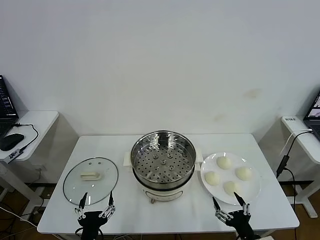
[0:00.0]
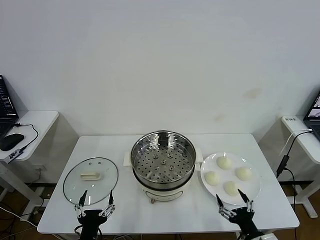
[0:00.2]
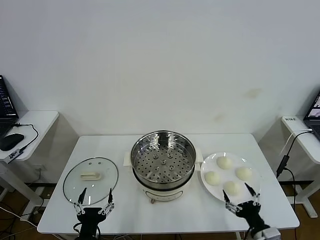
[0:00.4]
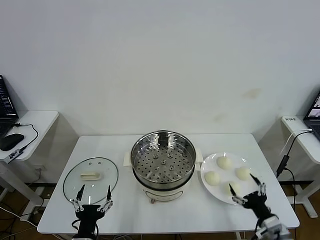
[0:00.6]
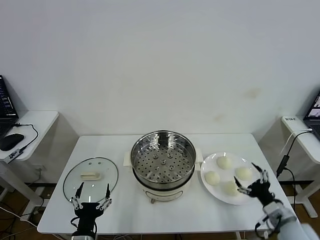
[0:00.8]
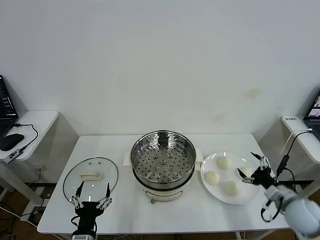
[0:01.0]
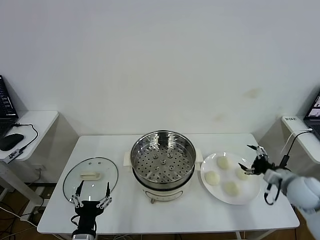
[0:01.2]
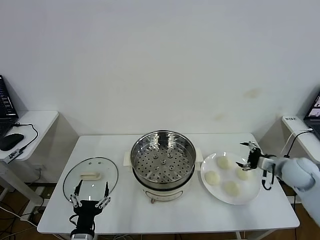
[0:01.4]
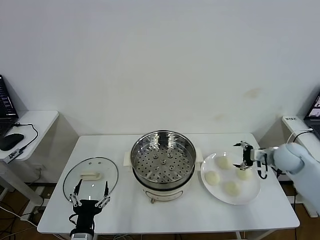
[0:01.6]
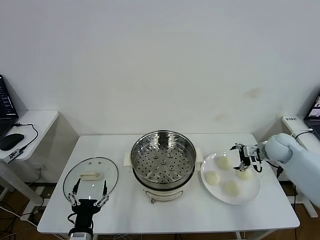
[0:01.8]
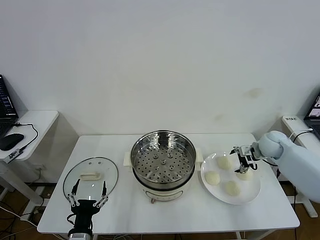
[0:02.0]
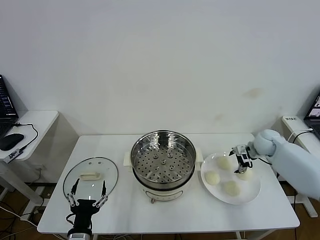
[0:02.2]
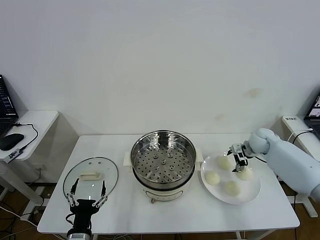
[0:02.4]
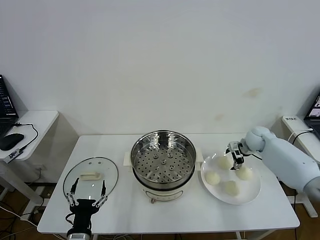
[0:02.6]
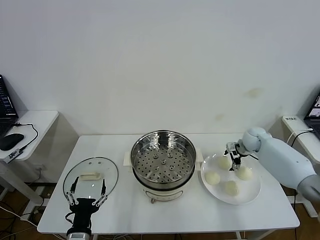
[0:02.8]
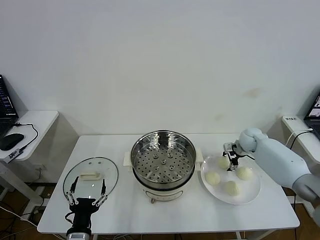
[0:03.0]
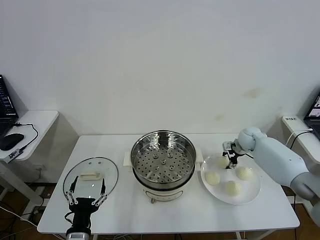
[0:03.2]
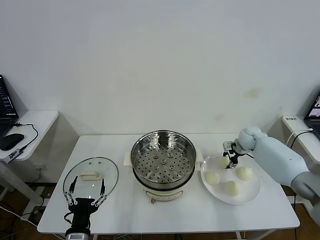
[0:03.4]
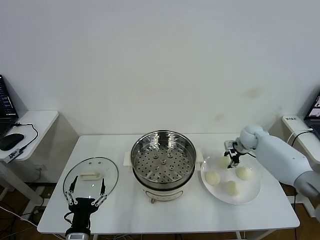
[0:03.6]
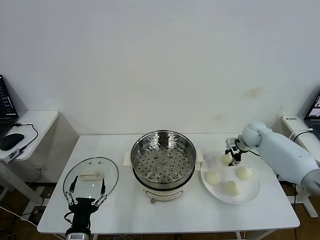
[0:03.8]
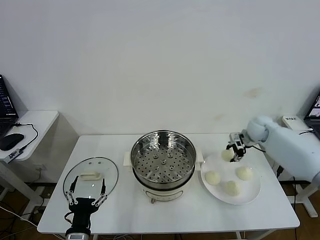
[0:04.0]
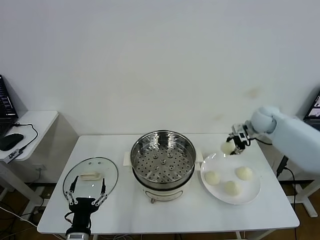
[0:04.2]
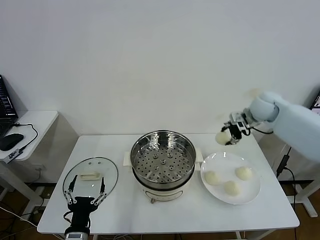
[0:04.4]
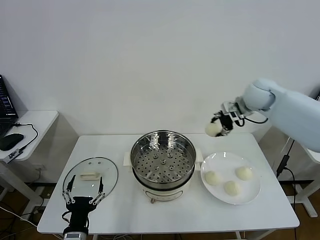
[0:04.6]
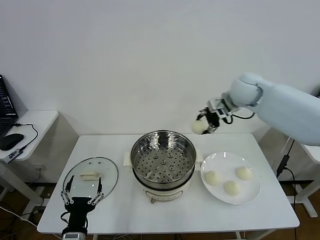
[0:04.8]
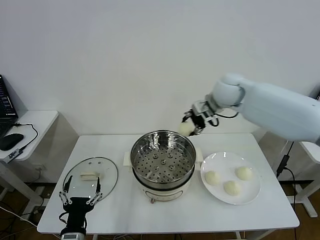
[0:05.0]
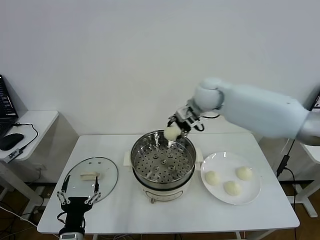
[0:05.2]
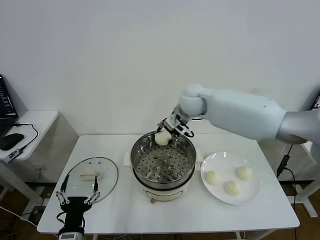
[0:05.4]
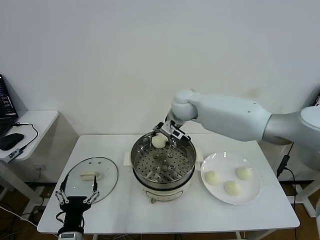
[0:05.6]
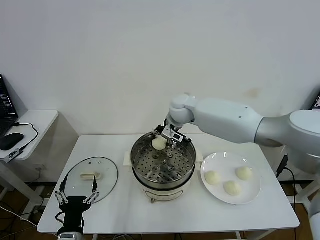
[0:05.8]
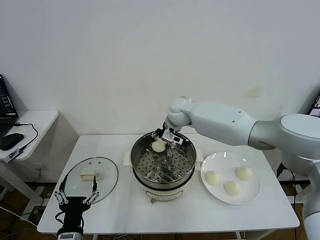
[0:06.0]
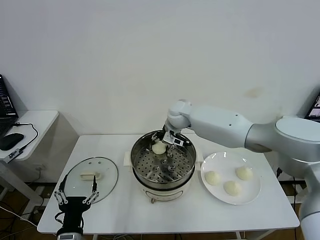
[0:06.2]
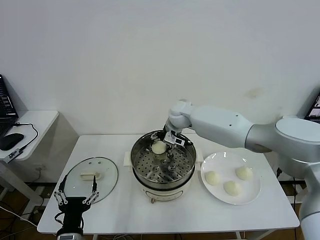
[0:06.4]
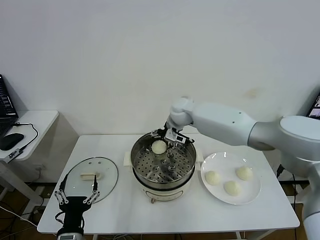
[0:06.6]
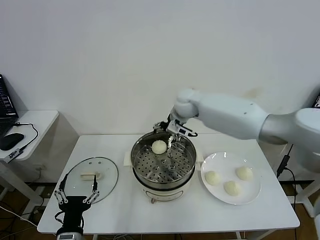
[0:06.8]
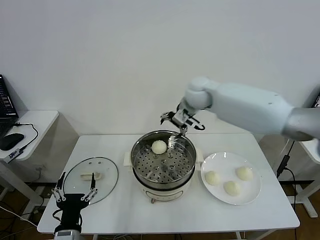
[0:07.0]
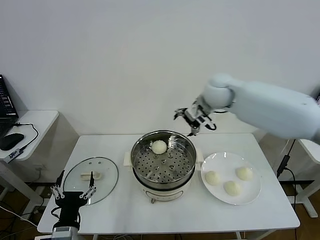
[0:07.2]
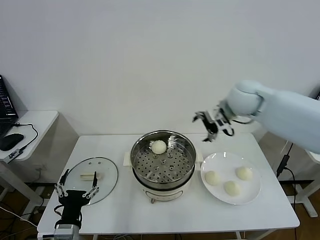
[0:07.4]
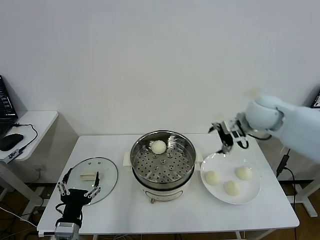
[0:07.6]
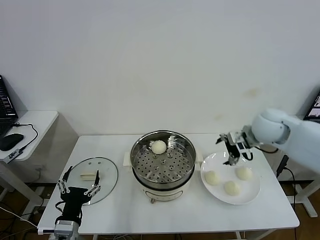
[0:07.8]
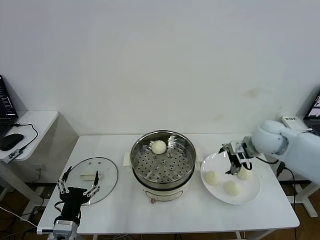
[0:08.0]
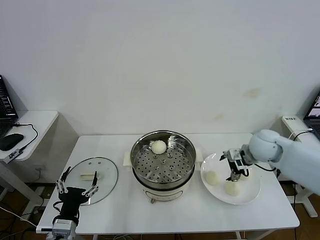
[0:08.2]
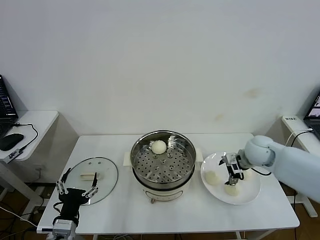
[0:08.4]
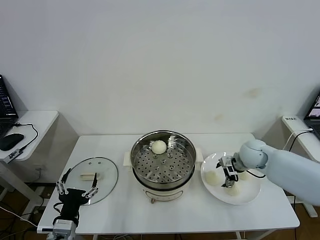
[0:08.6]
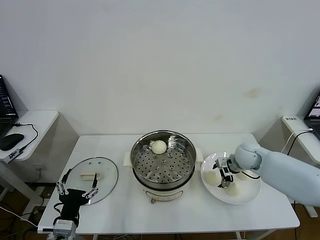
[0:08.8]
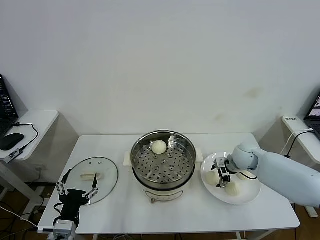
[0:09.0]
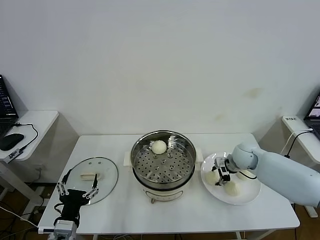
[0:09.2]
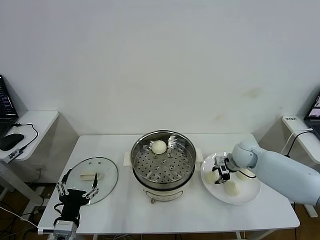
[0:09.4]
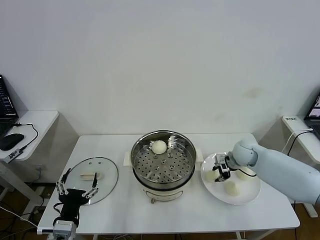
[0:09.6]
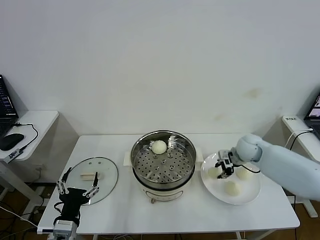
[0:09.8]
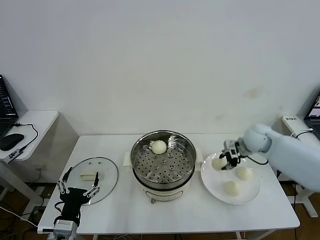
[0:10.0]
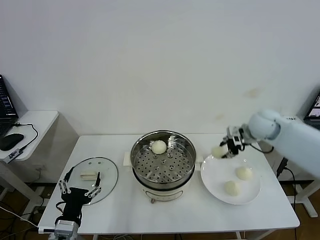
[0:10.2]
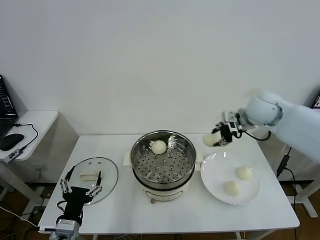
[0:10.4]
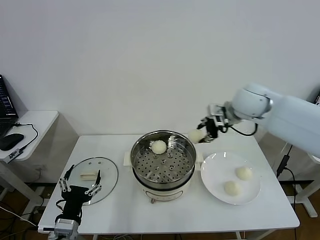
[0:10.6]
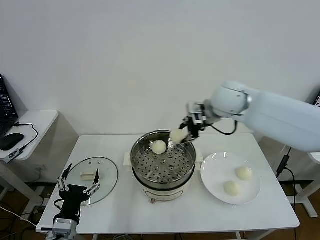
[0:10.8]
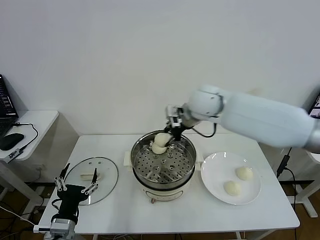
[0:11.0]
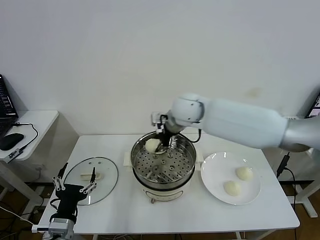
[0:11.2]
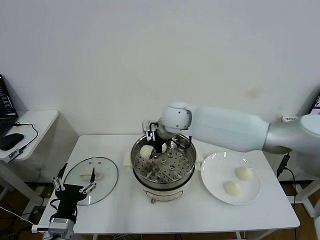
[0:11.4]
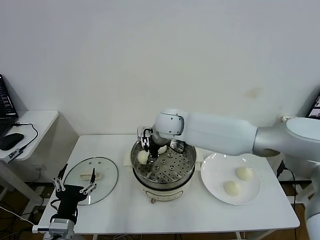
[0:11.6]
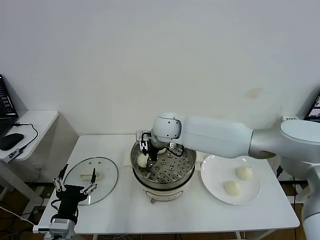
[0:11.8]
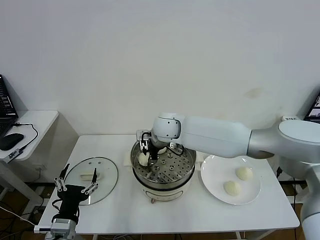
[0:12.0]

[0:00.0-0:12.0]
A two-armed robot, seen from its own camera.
Task of the whole recording: take steamed baozi put them in steamer then cover it.
Step, 0:00.0 to 0:03.2: Grasp the baozi in the plate with right gripper.
Step, 0:03.4 to 0:06.4: Place the baozi on the steamer with right gripper.
Step, 0:06.6 to 0:09.2: Grasp the baozi in the plate with right gripper.
0:01.6 to 0:03.0: The right gripper shifts about 15 cm forward, to the left and downward.
0:03.0 to 0:04.4: The right gripper shifts about 20 cm upward, and closes.
0:04.4 to 0:06.0: The right gripper travels to the left by approximately 30 cm.
0:06.0 to 0:07.6: The right gripper travels to the right and backward by approximately 25 cm, and opens its fingers.
0:07.6 to 0:09.0: The right gripper shifts about 20 cm downward.
0:09.0 to 0:10.4: The right gripper travels upward by some 20 cm, and closes its fingers.
0:10.4 to 0:12.0: The right gripper is displaced to the left by roughly 30 cm.

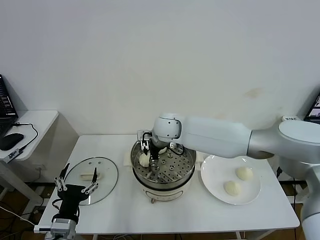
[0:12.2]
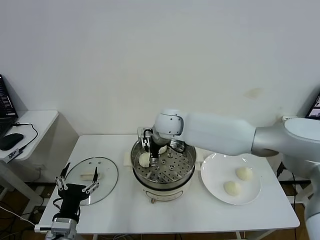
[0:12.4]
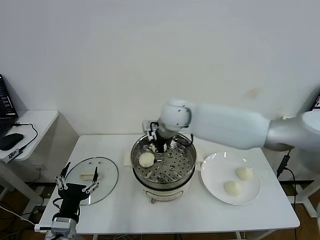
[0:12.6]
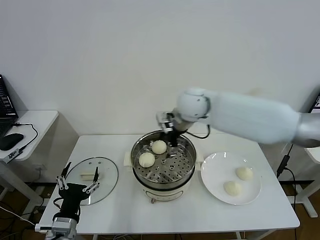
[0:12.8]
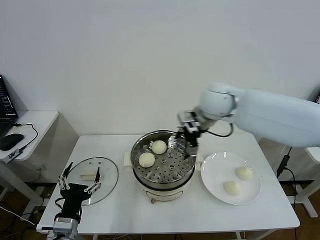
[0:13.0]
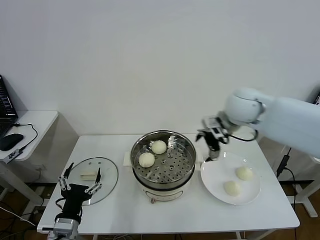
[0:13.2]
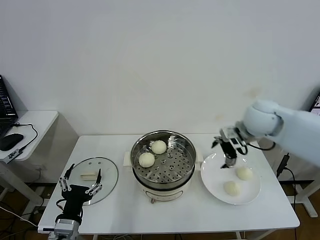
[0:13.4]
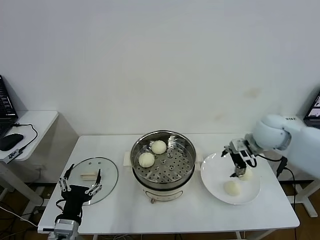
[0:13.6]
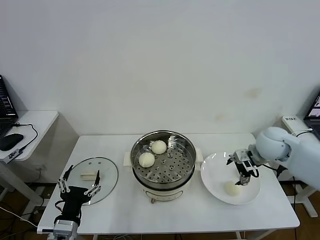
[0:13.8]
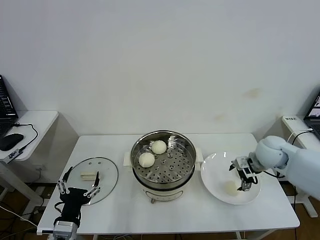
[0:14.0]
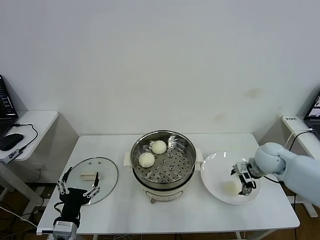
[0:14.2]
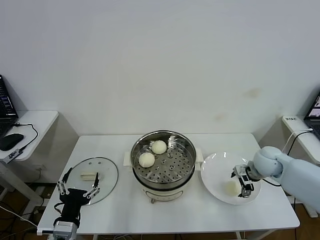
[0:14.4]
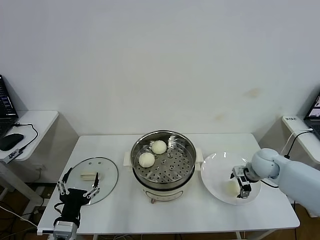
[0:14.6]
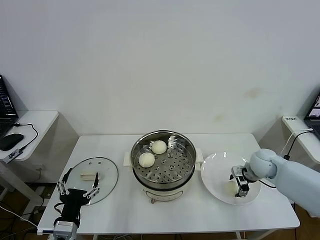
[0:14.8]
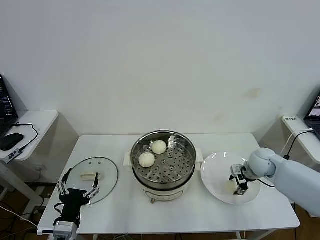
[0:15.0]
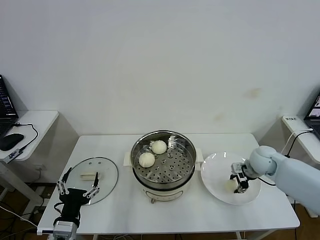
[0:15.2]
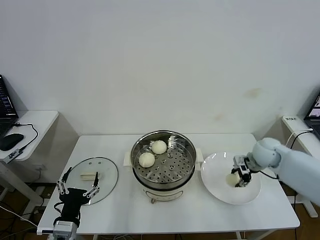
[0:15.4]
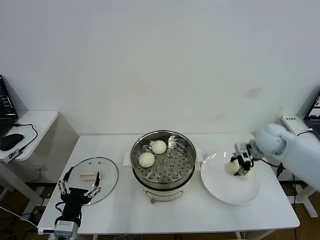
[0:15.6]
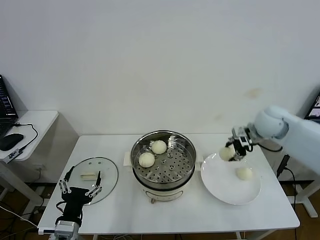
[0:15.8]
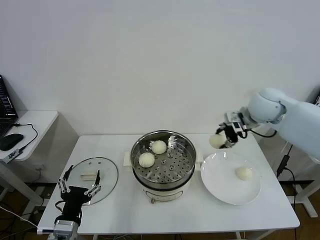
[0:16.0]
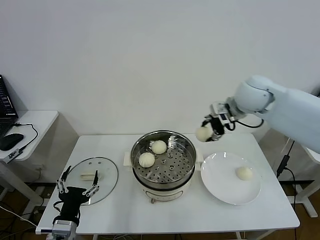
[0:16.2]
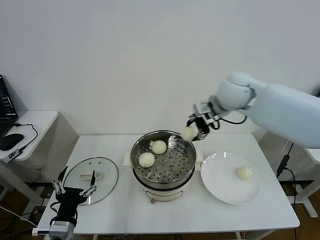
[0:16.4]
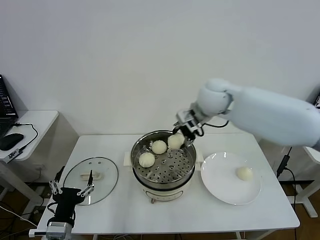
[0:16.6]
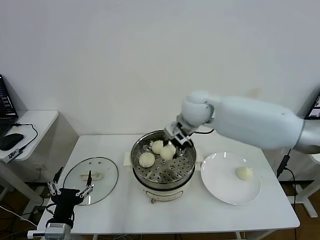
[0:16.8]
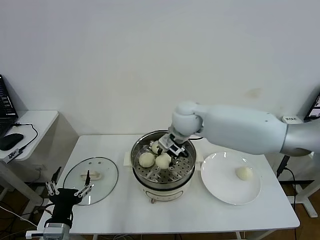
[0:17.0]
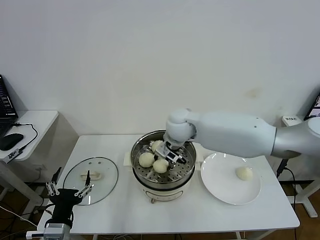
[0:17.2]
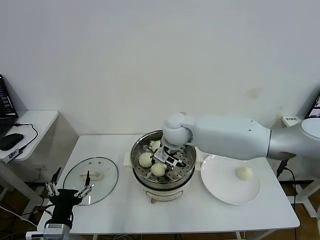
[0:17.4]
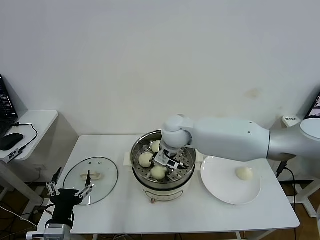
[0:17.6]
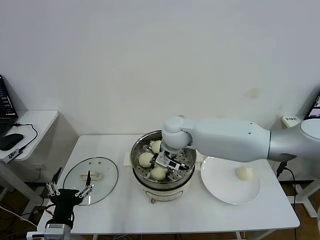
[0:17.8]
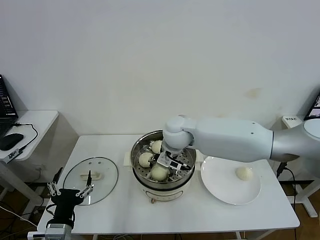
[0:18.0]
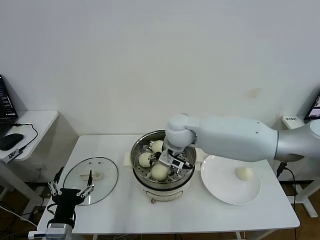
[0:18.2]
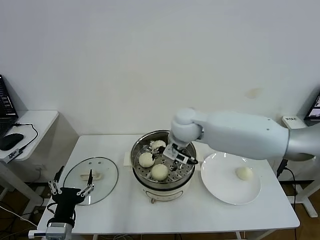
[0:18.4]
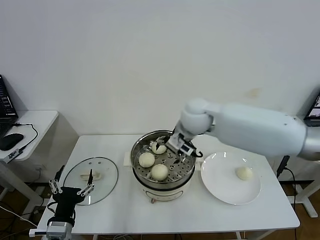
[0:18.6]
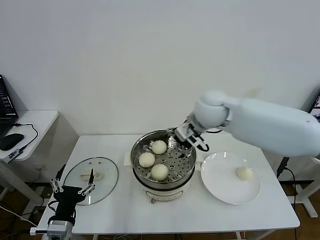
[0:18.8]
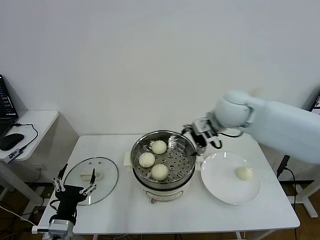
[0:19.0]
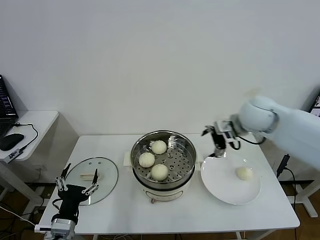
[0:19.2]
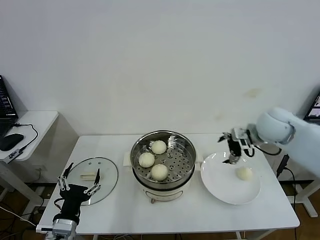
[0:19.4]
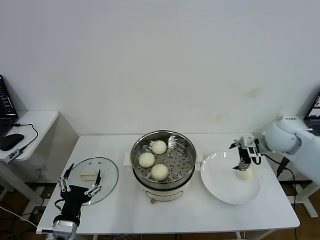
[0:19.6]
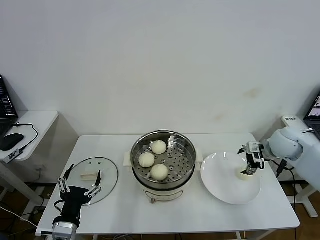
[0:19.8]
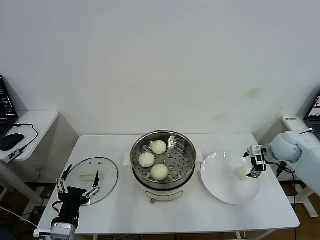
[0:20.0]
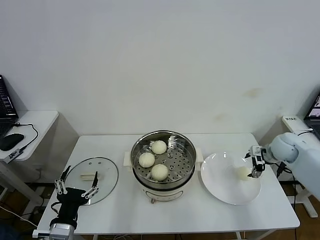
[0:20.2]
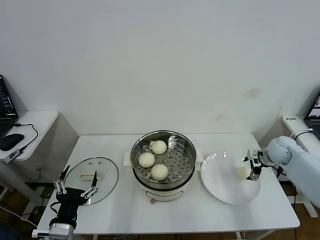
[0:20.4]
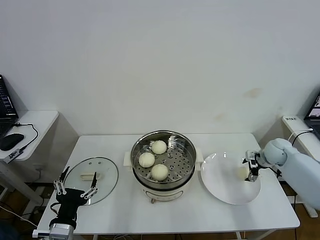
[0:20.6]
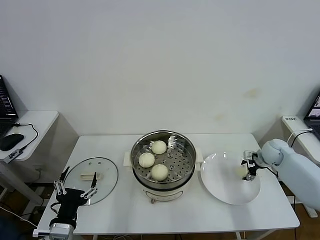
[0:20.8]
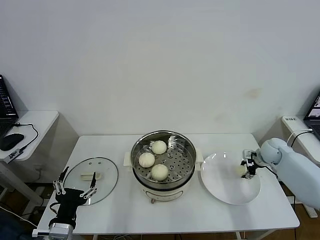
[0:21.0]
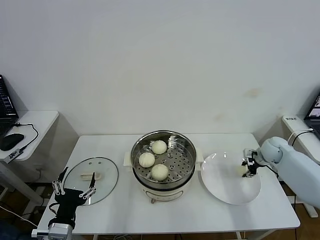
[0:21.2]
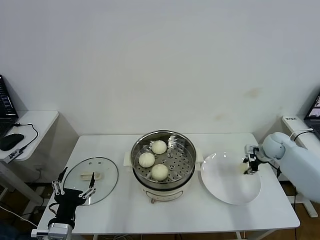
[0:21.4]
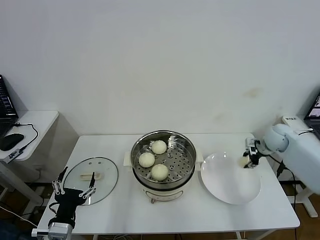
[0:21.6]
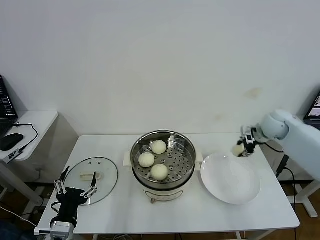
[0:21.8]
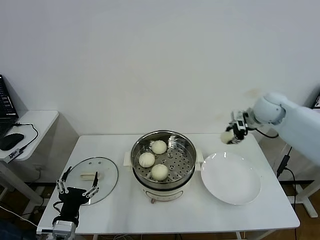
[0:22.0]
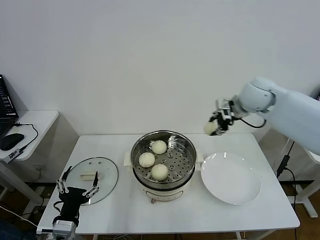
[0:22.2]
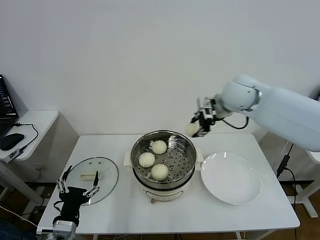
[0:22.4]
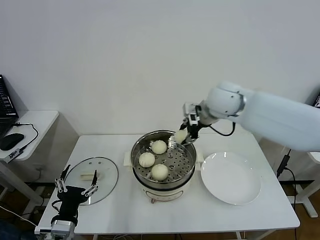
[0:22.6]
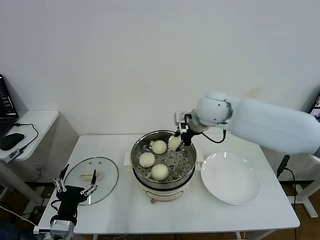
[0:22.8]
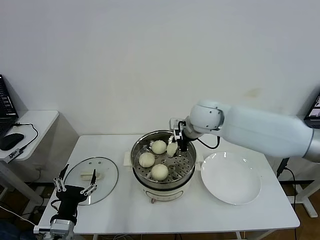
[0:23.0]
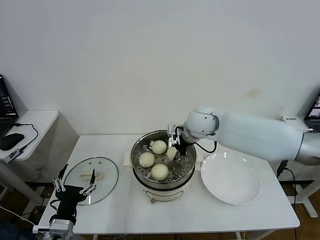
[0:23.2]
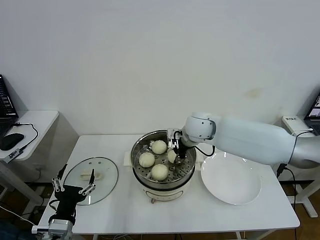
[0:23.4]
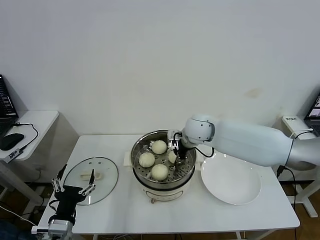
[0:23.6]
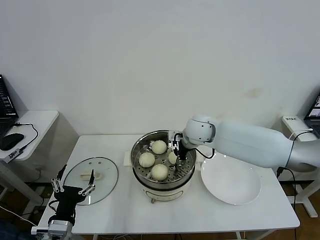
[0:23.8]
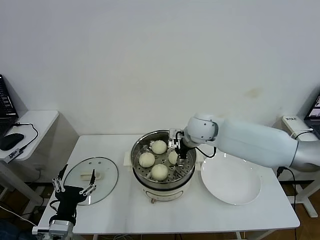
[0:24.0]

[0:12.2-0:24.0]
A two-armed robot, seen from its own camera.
Task of the whole recording: take steamed baozi put them in steamer then cover it.
Step, 0:12.4 to 0:15.2: Grasp the baozi in the plate with right gripper.
Step, 0:15.4 to 0:18.0: Place the baozi on the steamer with right gripper.
Step, 0:18.2 to 0:21.2: Grasp the baozi in the plate with right gripper.
Step, 0:21.4 to 0:23.8: Place the baozi on the steamer with right gripper.
0:12.2 to 0:13.6: The right gripper shifts roughly 30 cm to the right, and opens its fingers.
0:13.6 to 0:15.2: The right gripper is displaced downward by roughly 15 cm, and closes up.
0:15.2 to 0:16.6: The right gripper shifts some 30 cm upward and to the left.
0:16.6 to 0:18.2: The right gripper shifts about 15 cm downward and to the left, and opens up.
0:18.2 to 0:19.6: The right gripper is displaced to the right by about 30 cm.
0:19.6 to 0:21.0: The right gripper moves downward and to the right, some 15 cm, and closes.
0:21.0 to 0:22.6: The right gripper travels to the left and upward by approximately 35 cm.
0:22.6 to 0:24.0: The right gripper travels downward by about 10 cm, and opens its fingers.
